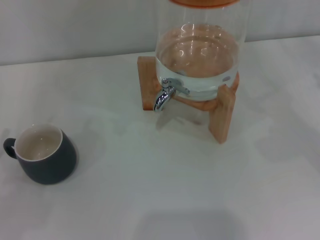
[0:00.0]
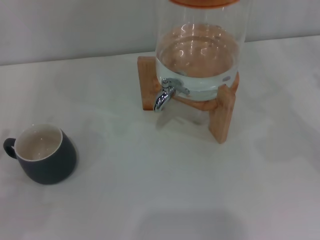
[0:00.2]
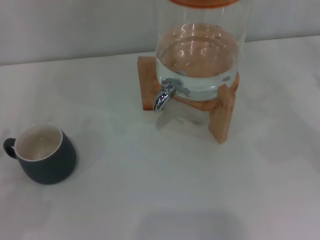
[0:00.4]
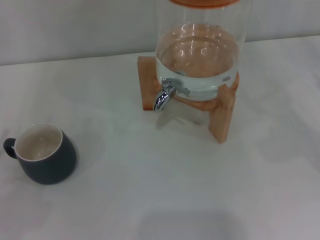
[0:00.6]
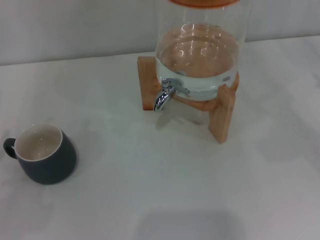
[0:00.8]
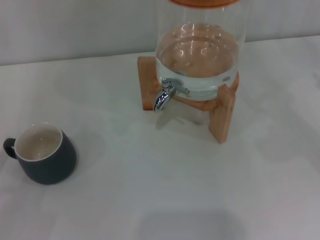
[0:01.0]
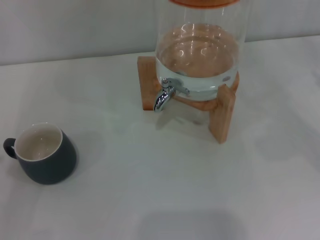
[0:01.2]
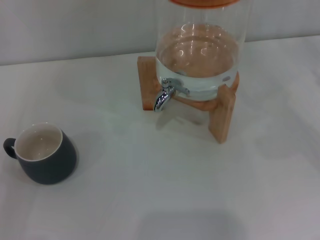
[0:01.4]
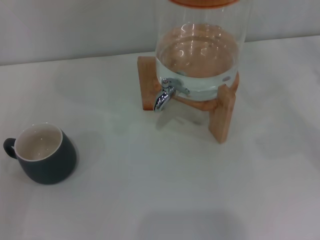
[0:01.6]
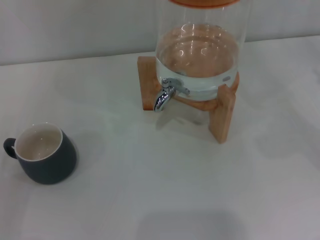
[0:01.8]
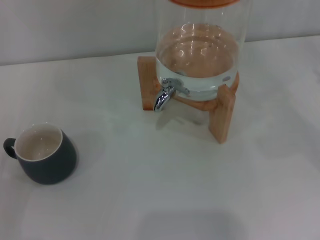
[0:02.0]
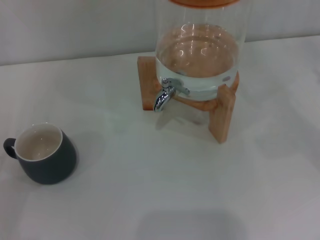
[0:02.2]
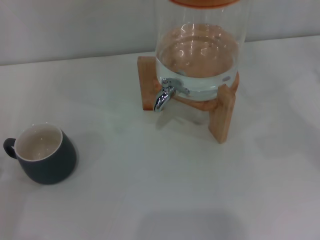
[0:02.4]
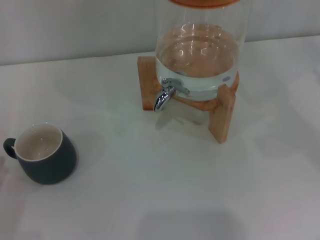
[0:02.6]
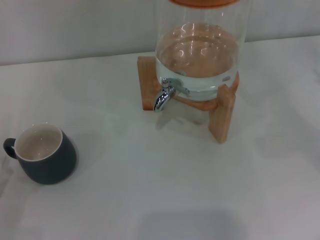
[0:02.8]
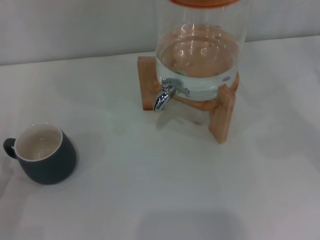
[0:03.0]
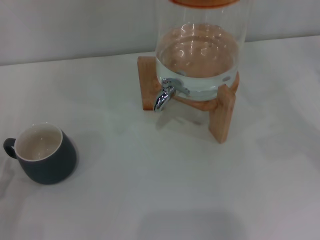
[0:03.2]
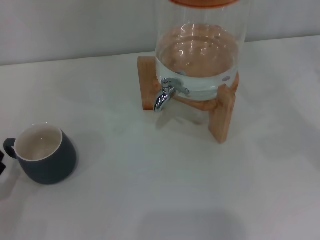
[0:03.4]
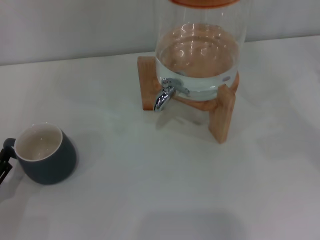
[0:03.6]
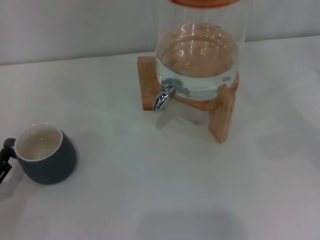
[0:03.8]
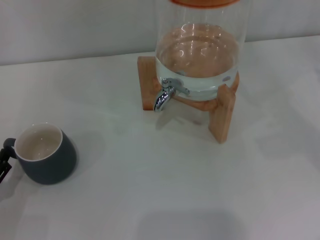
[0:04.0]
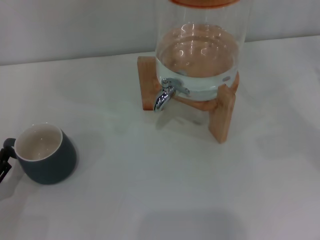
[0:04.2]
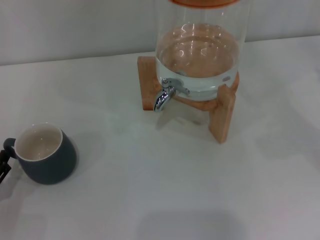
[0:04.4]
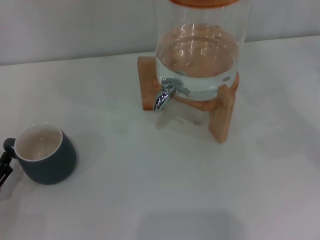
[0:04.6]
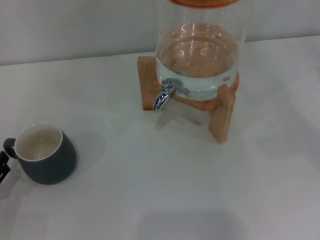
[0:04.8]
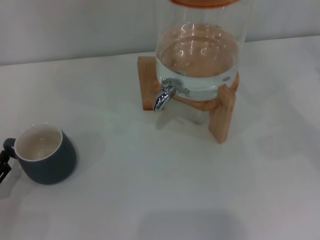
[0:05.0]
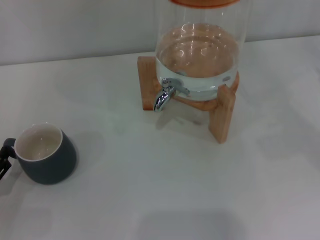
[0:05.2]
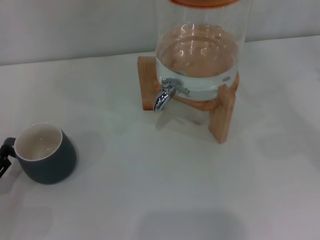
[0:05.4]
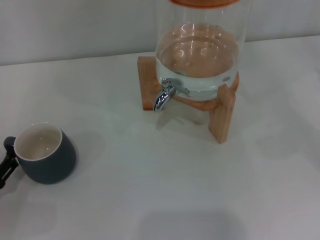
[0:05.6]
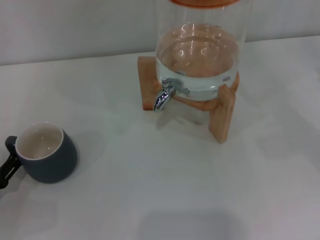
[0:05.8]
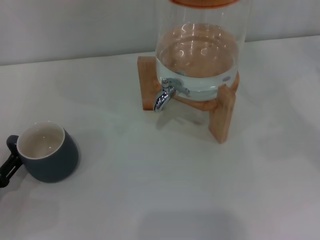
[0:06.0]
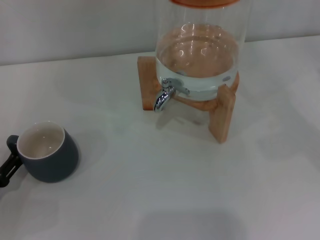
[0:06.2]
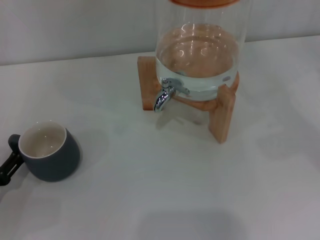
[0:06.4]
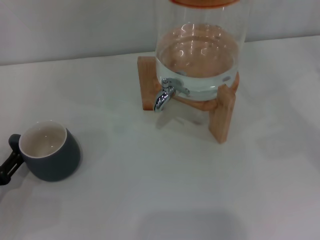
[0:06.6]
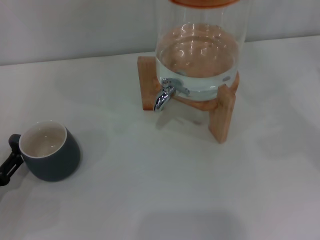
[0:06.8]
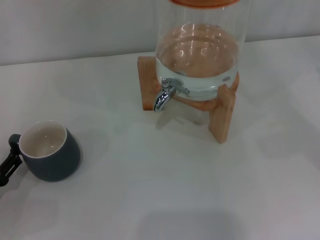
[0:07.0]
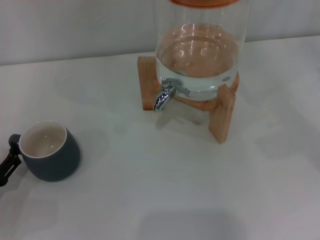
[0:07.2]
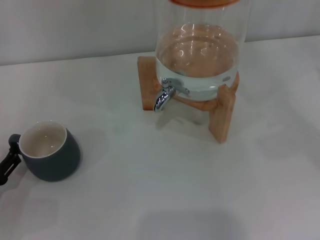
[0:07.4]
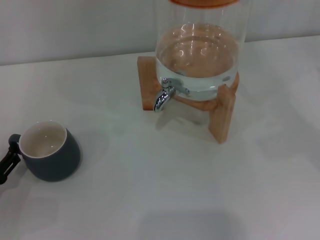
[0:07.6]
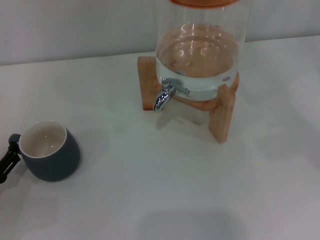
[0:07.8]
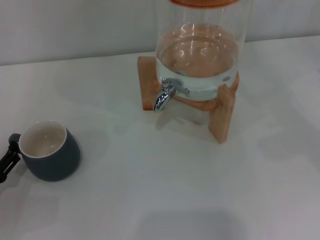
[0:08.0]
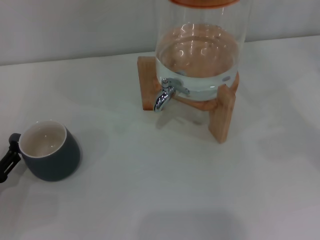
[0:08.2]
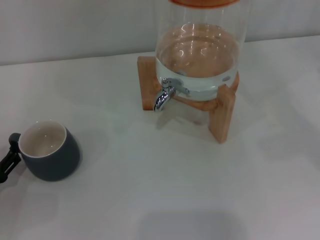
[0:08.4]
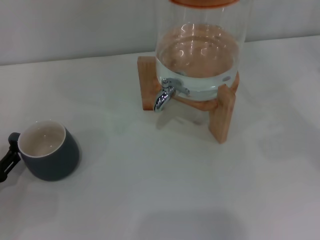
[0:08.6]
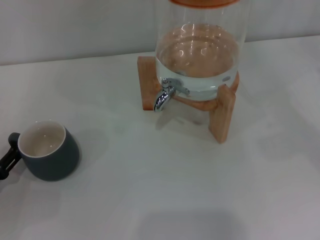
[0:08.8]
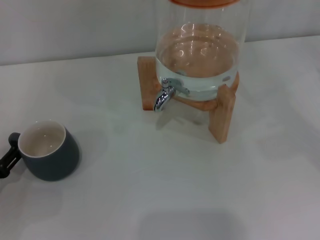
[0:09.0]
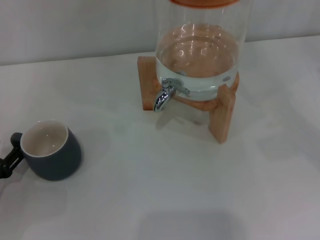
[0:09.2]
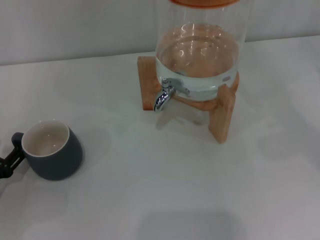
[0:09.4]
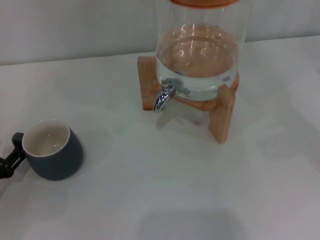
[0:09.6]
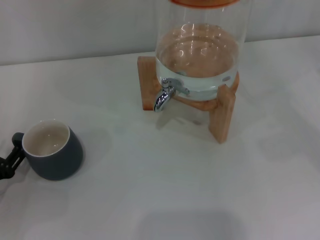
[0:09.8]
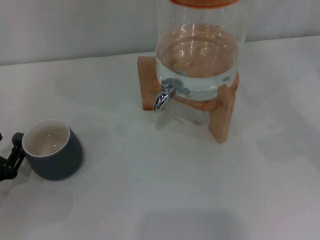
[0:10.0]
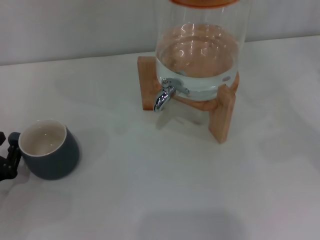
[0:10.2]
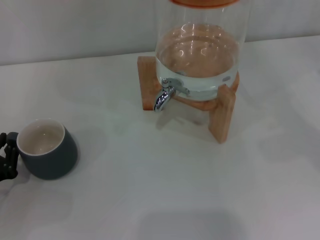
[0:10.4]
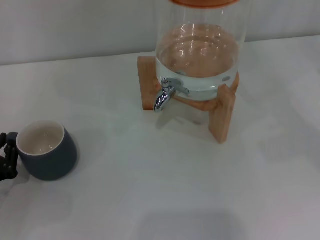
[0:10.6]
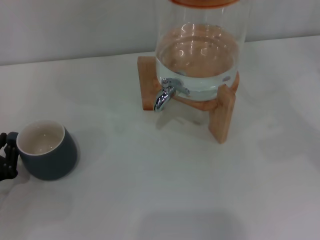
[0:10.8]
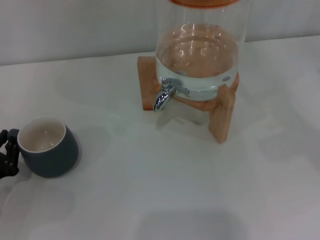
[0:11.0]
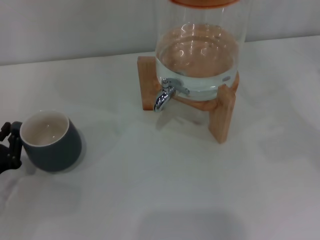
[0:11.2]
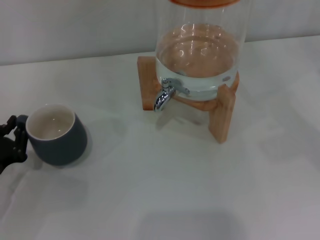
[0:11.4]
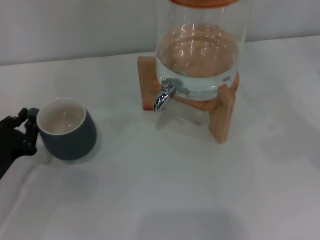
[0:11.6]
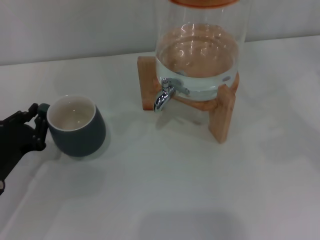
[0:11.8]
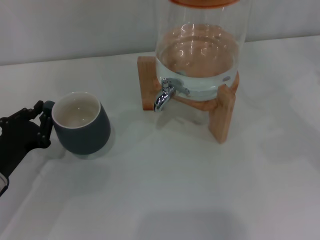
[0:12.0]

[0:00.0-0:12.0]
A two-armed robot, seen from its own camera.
Task of the whole recording: the left gripper pick up the black cup and place it horizontally under the faucet, the right gripper turn on the faucet to fill the cup, and then turn off the faucet.
0:04.4 to 0:06.0: There are only small adjustments of the grippers.
0:06.0 to 0:07.6: The two grippers keep their place.
0:07.6 to 0:09.0: Both grippers stay put.
0:09.0 to 0:10.4: The left gripper closes up.
0:10.4 to 0:12.0: The left gripper ends up approximately 5 cm from where it was.

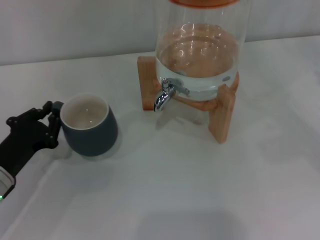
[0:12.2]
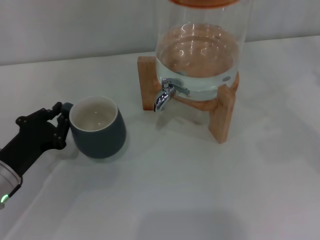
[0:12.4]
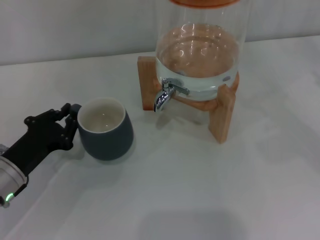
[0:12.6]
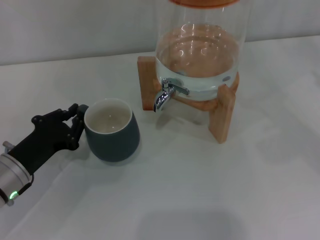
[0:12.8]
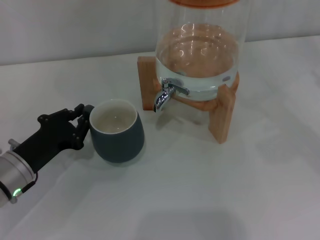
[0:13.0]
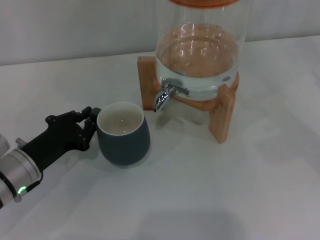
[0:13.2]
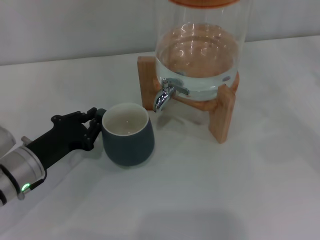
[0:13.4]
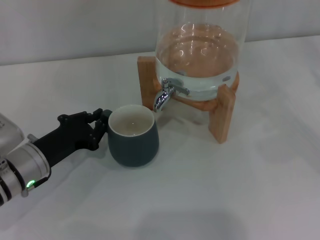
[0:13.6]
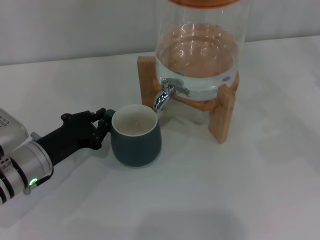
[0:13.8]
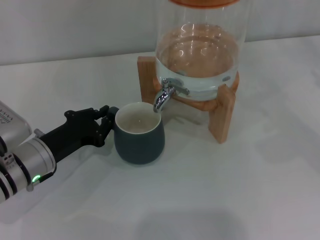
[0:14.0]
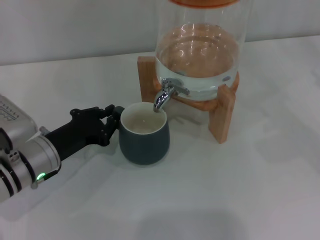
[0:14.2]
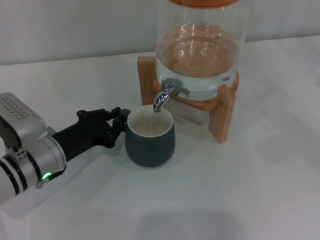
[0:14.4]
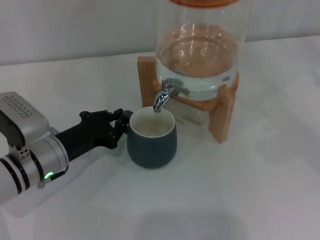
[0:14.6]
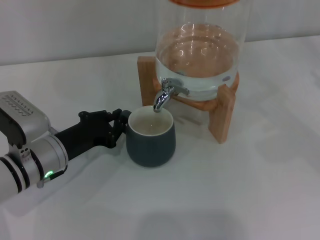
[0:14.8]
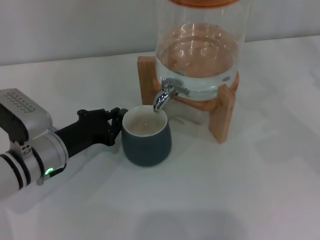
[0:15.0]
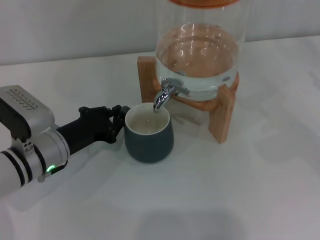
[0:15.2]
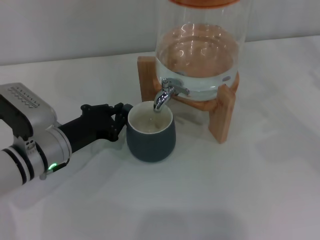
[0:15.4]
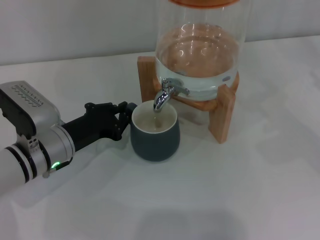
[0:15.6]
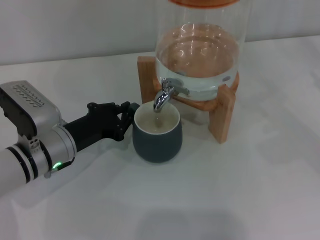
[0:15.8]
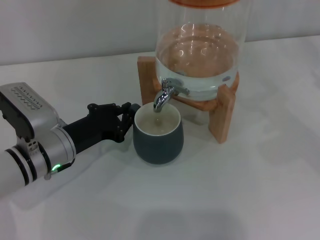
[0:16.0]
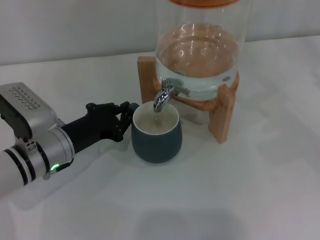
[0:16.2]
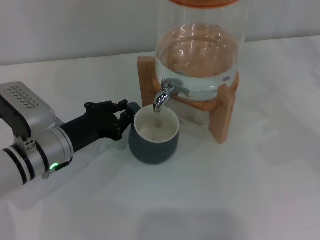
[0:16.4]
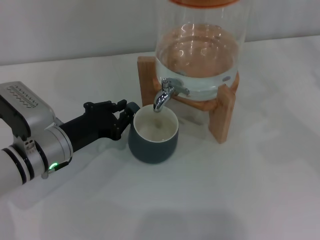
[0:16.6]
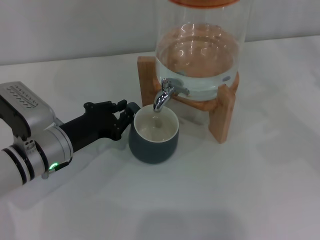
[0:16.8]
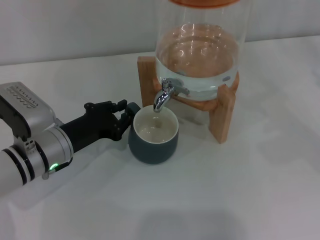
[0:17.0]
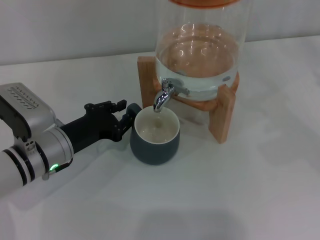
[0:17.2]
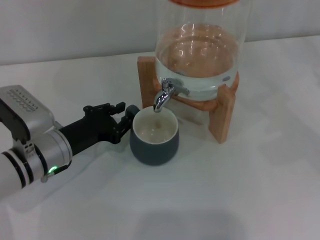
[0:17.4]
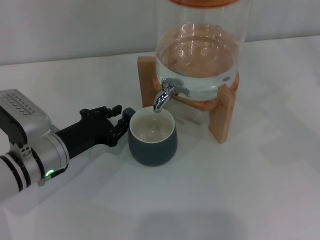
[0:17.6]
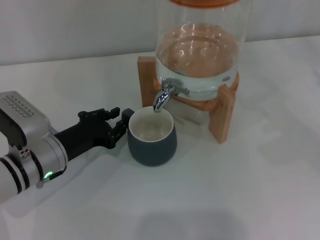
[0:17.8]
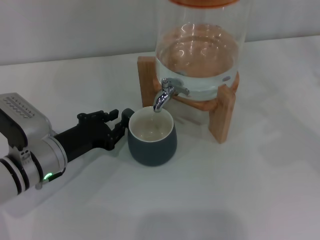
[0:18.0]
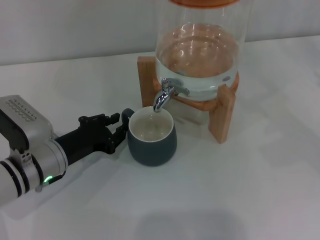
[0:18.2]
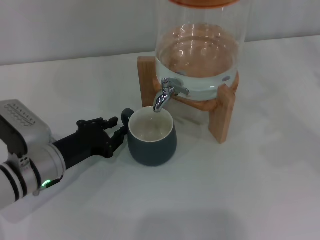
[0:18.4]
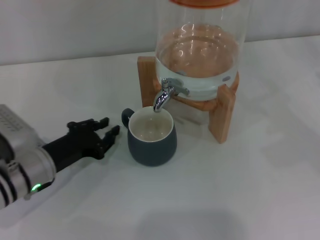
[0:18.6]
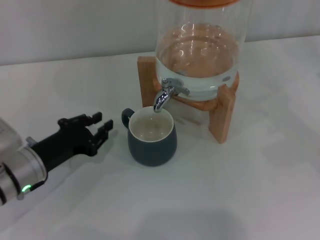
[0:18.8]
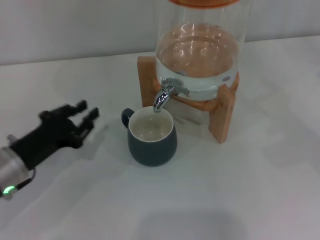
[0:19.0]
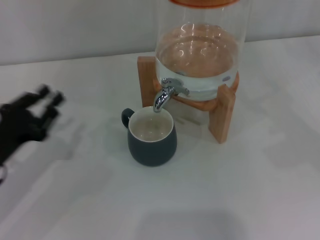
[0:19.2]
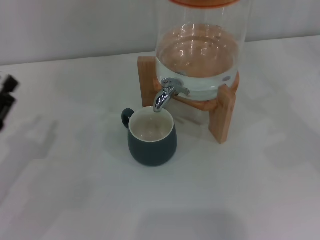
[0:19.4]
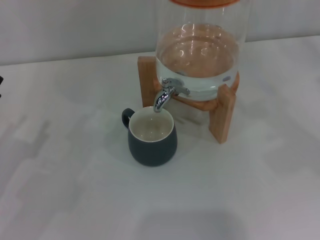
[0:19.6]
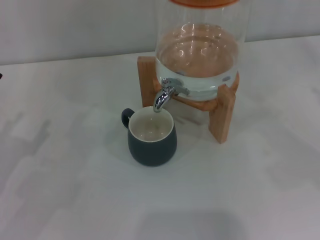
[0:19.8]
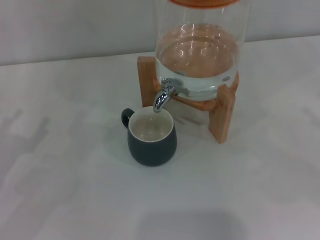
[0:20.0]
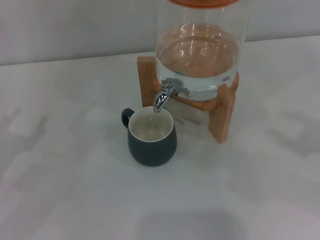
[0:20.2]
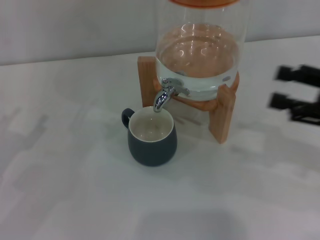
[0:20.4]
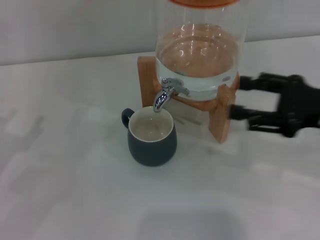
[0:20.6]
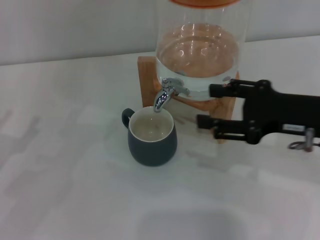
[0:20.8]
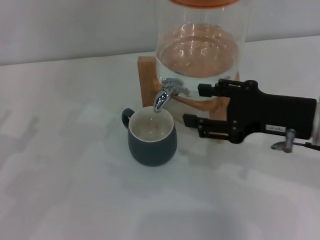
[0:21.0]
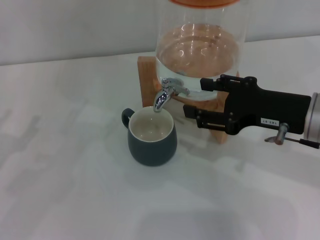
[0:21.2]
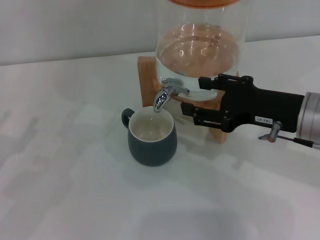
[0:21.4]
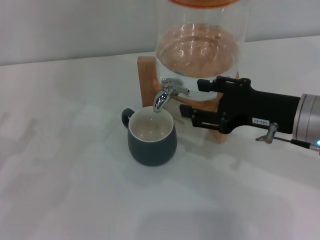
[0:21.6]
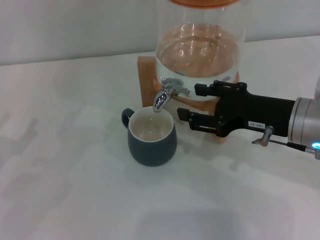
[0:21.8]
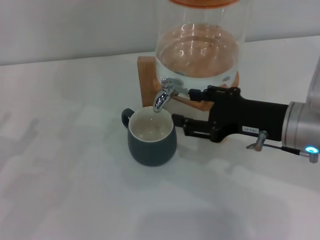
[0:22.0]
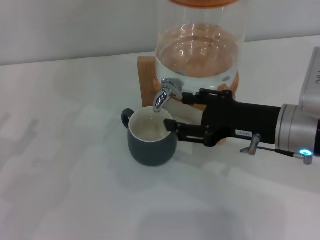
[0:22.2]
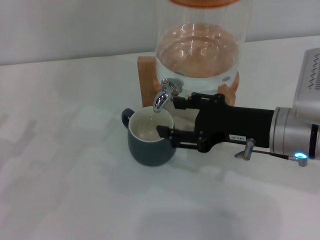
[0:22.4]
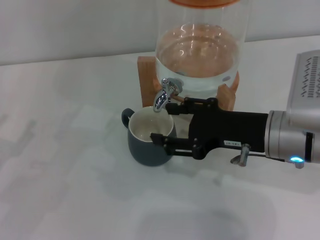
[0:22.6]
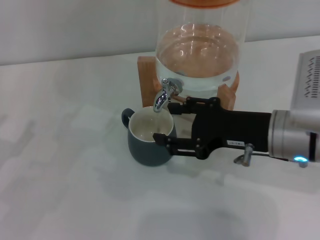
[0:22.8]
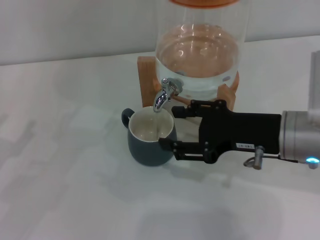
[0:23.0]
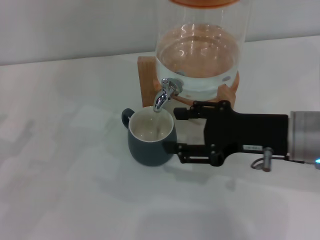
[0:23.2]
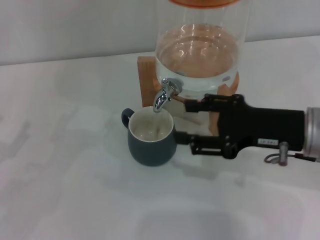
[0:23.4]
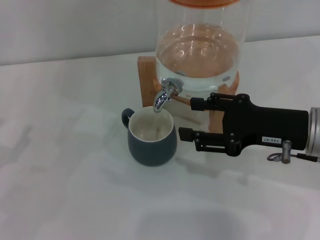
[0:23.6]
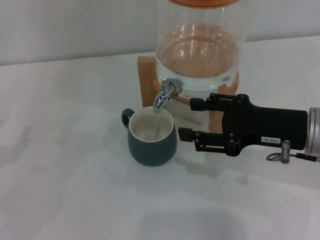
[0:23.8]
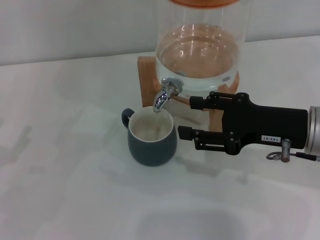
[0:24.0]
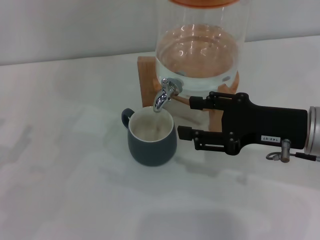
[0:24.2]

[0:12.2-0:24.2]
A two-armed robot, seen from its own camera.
Task of the whole recording: the left gripper pick up the black cup and place it horizontally under the faucet, the right gripper turn on the faucet to fill the cup, and then turn off the faucet.
Step, 0:12.2 to 0:18.6: Move the cup beneath the water dispenser nozzle with the left gripper.
Step, 0:18.8 to 0:23.4: Open the dispenser valve and fill the cup with water with the right gripper.
0:12.2 to 0:13.8: The left gripper changes place by about 5 cm.
0:13.8 to 0:15.2: The grippers stay close to where they were, moving slightly.
0:15.2 to 0:16.6: Both grippers stay put.
0:16.6 to 0:18.2: There are only small adjustments of the grippers.
0:18.2 to 0:19.8: The left gripper heads to the left and backward, covering about 15 cm.
0:19.8 to 0:21.2: The right gripper shifts about 20 cm to the left. Meanwhile the left gripper opens up.
0:21.2 to 0:24.2: The grippers move only a little.
